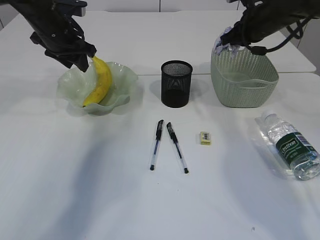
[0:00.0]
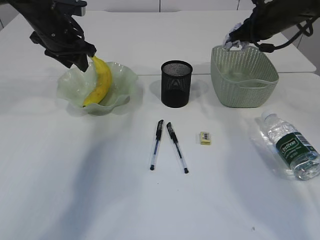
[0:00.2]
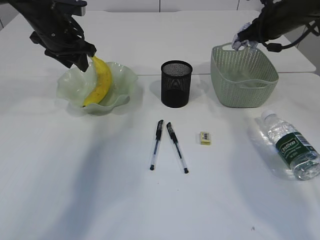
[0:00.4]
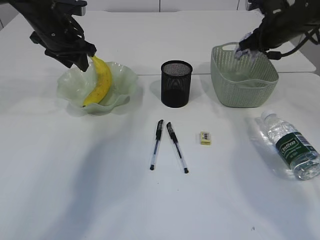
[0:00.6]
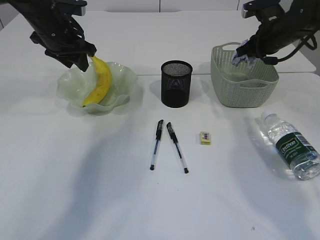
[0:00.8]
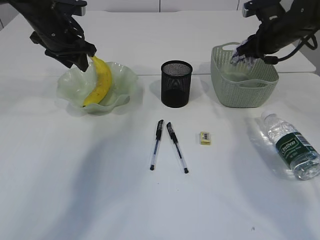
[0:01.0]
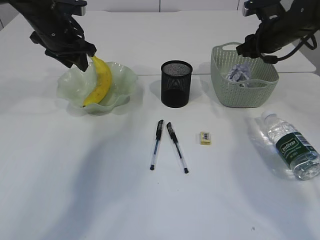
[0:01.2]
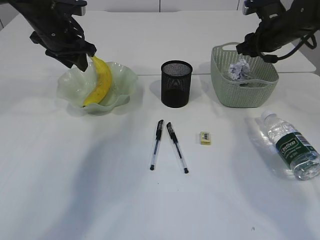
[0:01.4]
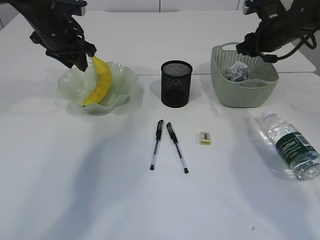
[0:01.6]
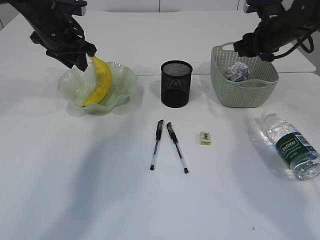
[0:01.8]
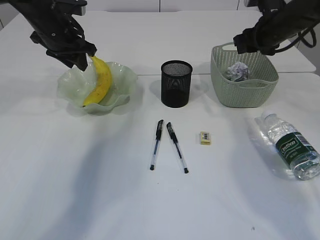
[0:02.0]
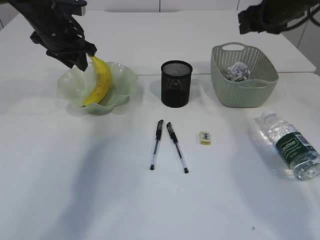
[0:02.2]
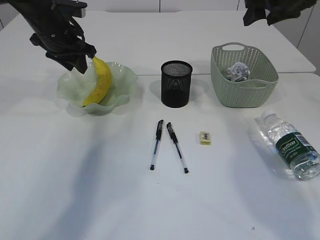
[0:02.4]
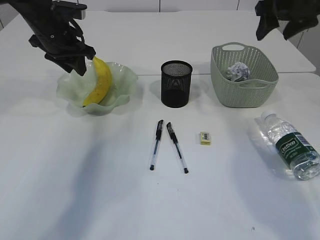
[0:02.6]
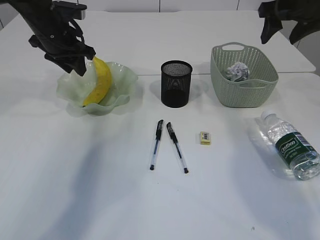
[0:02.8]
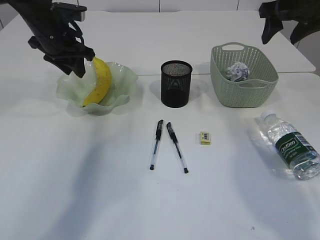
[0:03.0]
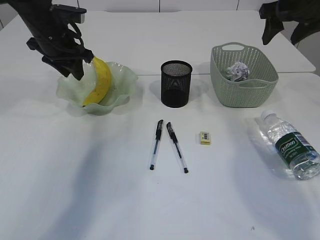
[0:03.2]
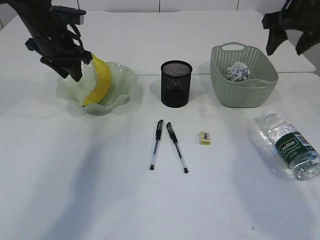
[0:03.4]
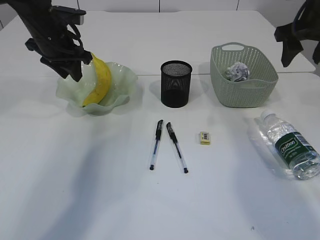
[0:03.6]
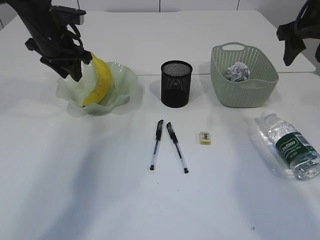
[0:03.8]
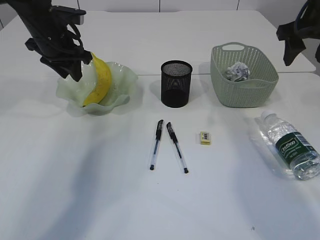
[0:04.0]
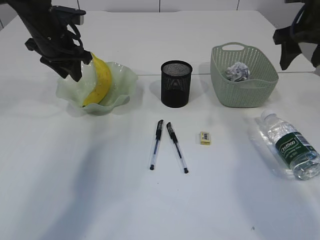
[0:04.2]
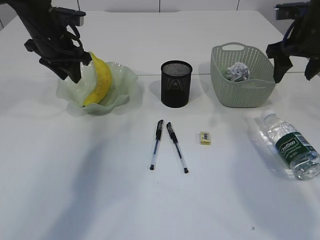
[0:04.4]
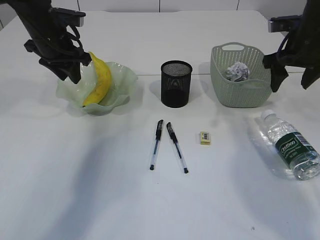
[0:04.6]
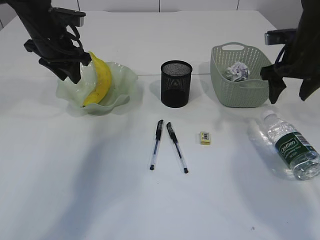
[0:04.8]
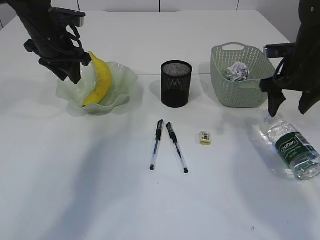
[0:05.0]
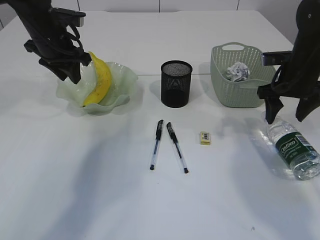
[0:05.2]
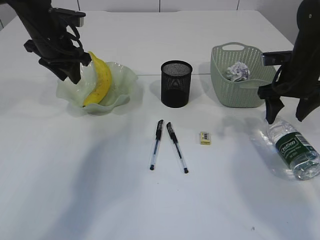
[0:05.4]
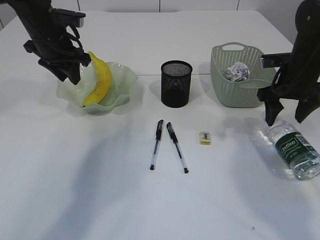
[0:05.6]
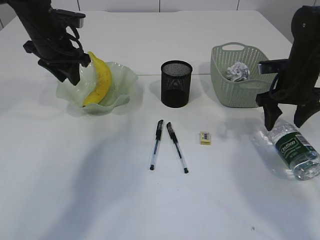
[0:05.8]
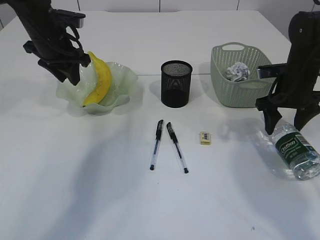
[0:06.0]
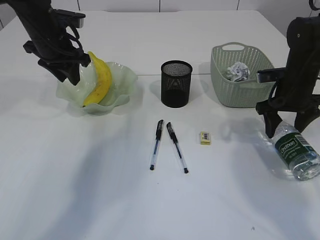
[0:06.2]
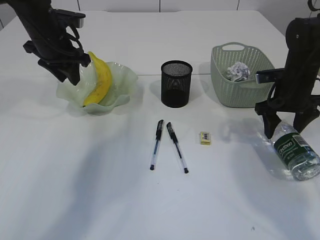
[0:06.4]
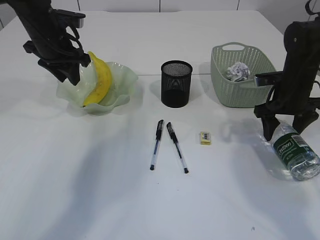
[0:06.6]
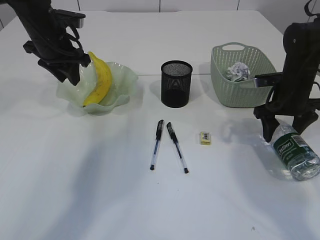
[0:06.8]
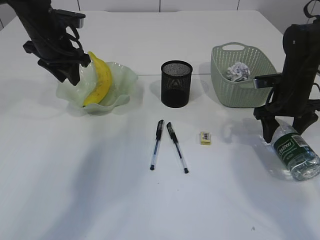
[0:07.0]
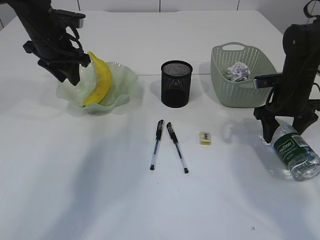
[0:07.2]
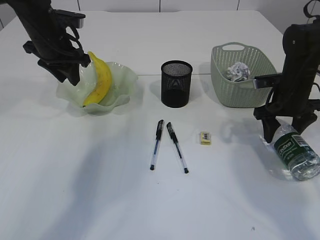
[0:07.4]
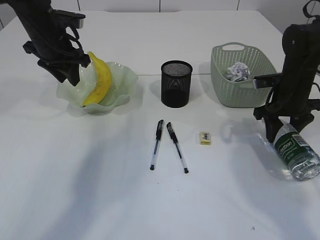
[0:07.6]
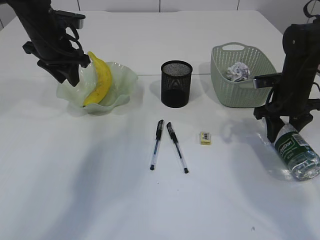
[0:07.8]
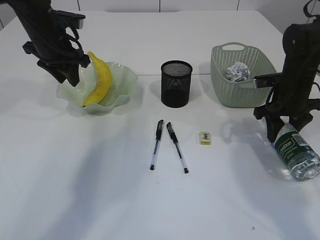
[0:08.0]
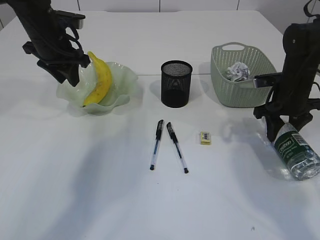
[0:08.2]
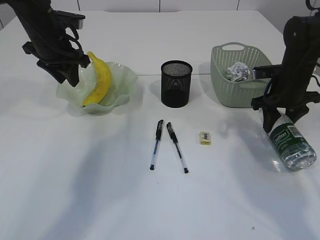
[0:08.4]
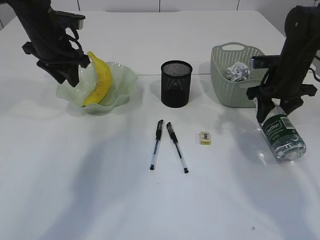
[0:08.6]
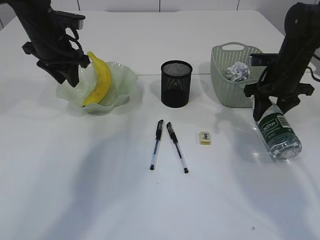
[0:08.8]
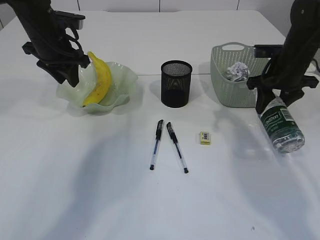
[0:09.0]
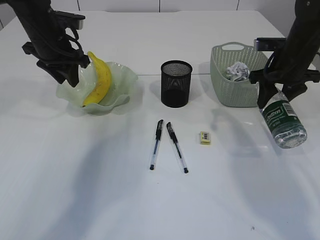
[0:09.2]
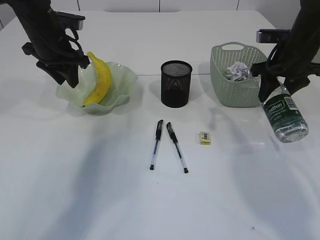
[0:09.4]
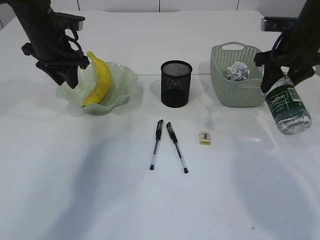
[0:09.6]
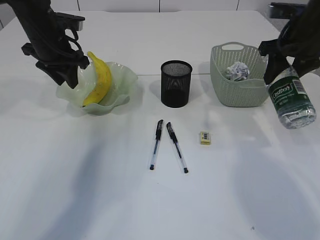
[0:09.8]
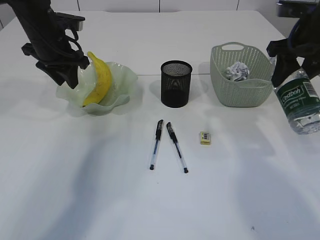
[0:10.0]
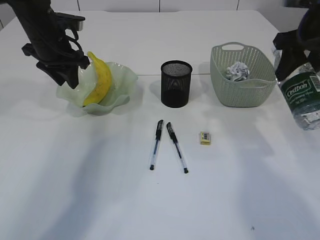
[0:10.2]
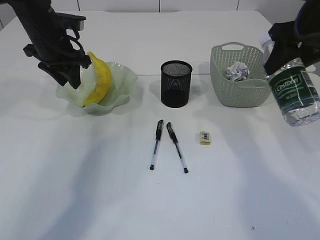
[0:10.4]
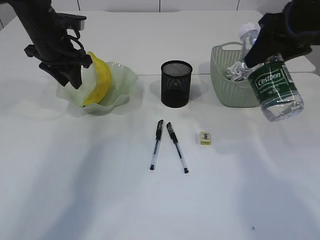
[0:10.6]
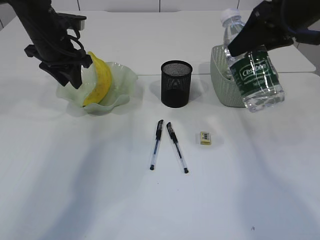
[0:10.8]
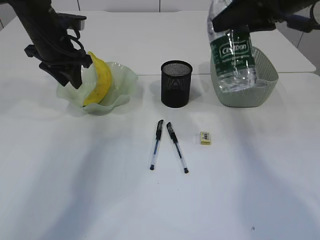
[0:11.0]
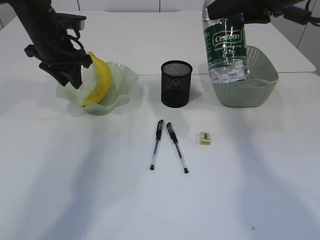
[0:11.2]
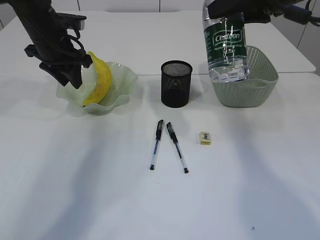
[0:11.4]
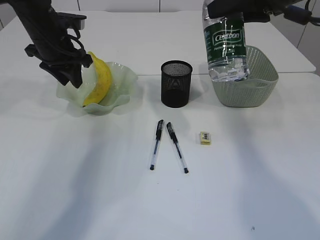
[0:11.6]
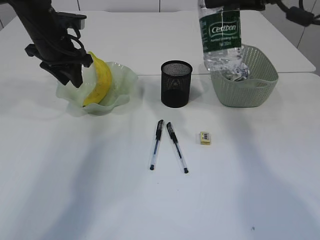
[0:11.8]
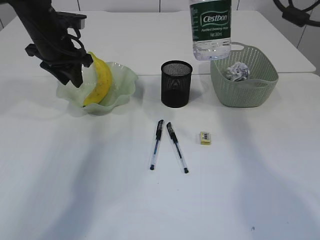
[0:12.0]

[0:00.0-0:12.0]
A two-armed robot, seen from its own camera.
Step, 0:00.0 to 0:02.0: Place the waste paper in the basket.
Step, 0:02.2 to 0:09.0: Pick up the bottle with the right arm.
0:00.0 to 0:01.6: The right gripper ends up roughly 5 cm from where it was, and opens.
0:01.6 to 0:03.0: The right gripper is displaced upward and backward by about 10 cm.
0:03.0 to 0:04.4: The right gripper ends up some 5 cm from where it was.
0:04.4 to 0:06.0: The right gripper goes some 10 cm downward.
0:06.0 to 0:07.6: The grippers make only small movements.
0:07.6 to 0:09.0: The right gripper ends up some 5 cm from where it was.
0:09.0 to 0:10.4: The right gripper moves upward and backward, approximately 15 cm.
0:10.4 to 0:12.0: The right gripper travels to the left and upward by roughly 10 cm.

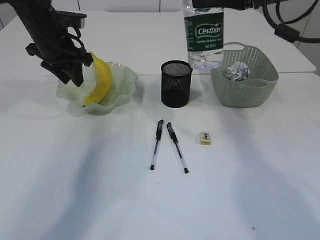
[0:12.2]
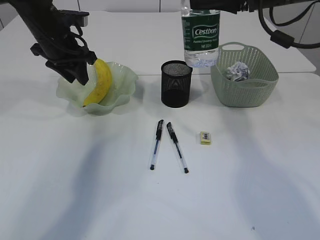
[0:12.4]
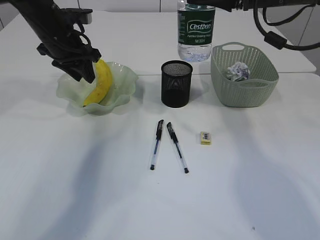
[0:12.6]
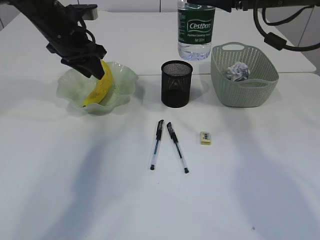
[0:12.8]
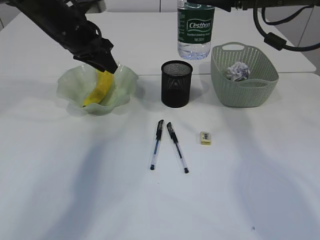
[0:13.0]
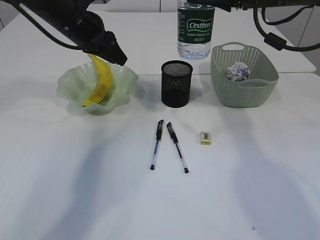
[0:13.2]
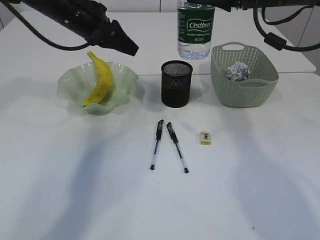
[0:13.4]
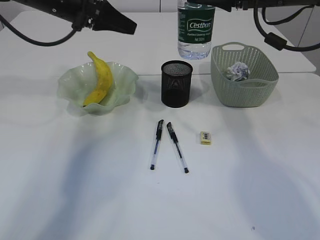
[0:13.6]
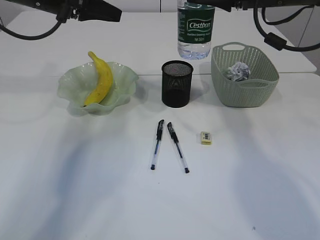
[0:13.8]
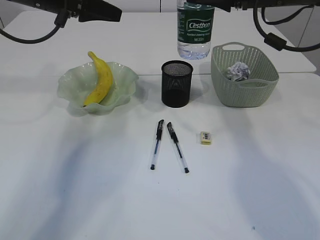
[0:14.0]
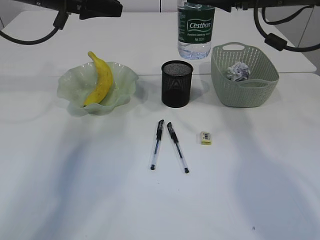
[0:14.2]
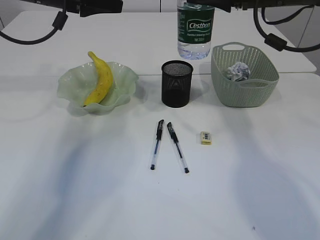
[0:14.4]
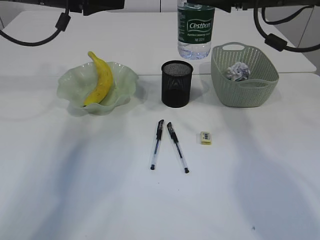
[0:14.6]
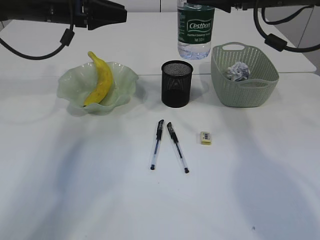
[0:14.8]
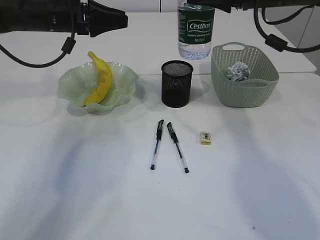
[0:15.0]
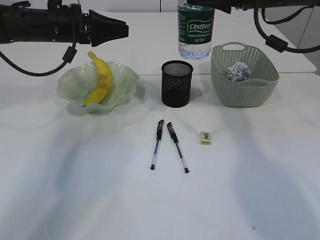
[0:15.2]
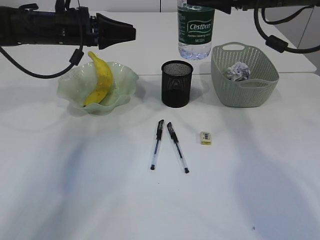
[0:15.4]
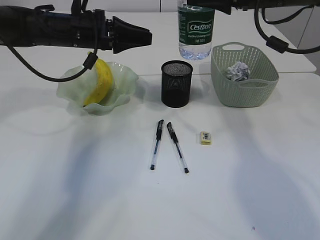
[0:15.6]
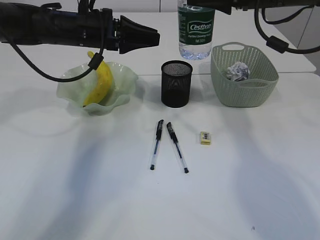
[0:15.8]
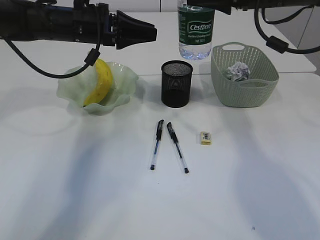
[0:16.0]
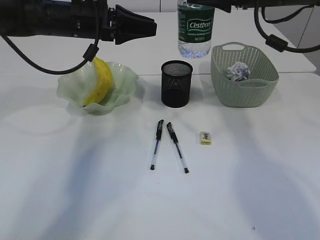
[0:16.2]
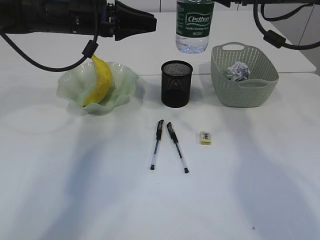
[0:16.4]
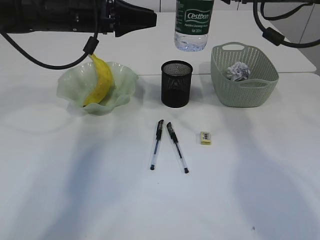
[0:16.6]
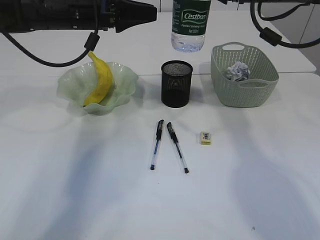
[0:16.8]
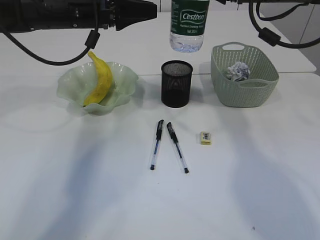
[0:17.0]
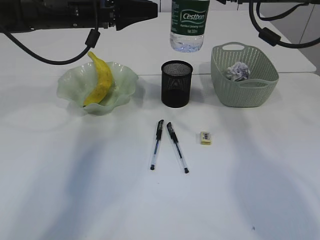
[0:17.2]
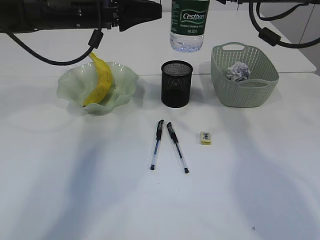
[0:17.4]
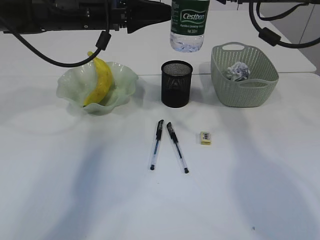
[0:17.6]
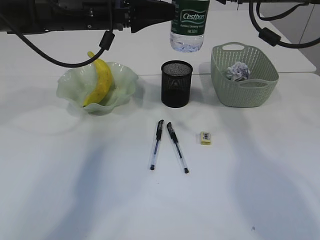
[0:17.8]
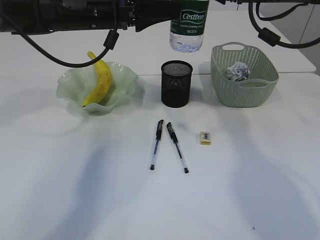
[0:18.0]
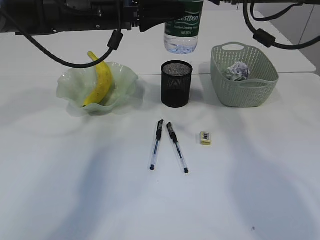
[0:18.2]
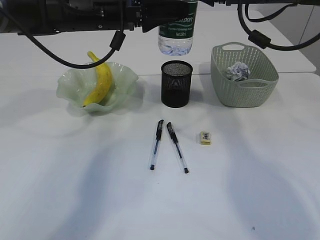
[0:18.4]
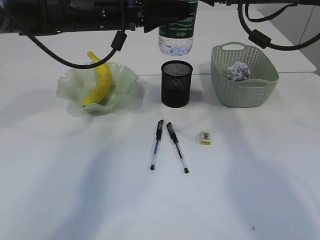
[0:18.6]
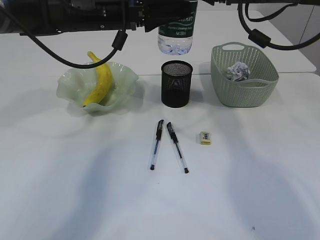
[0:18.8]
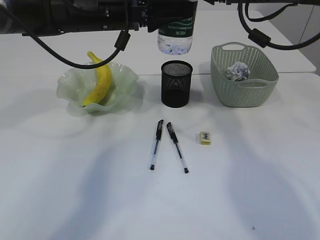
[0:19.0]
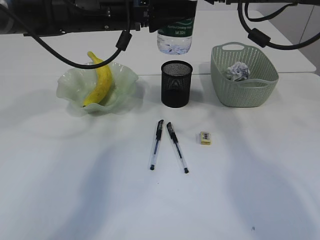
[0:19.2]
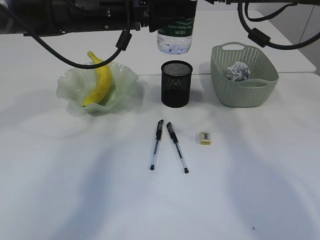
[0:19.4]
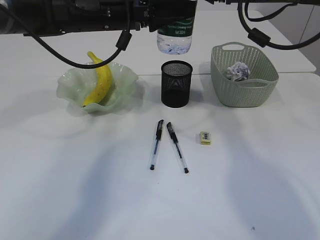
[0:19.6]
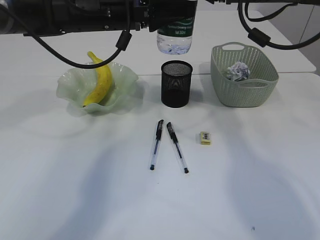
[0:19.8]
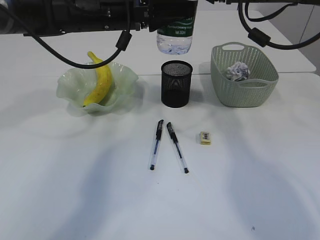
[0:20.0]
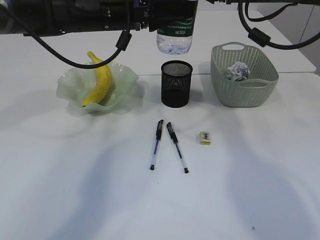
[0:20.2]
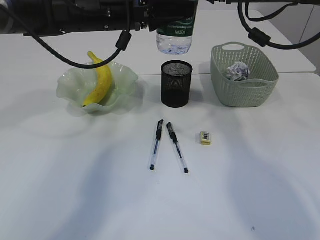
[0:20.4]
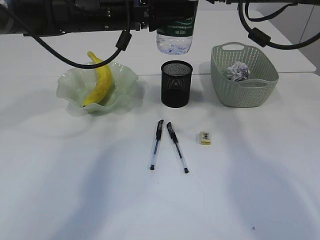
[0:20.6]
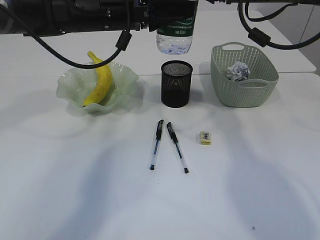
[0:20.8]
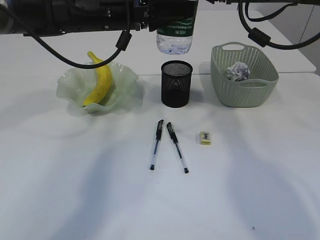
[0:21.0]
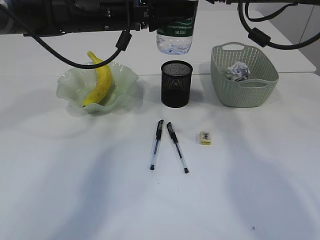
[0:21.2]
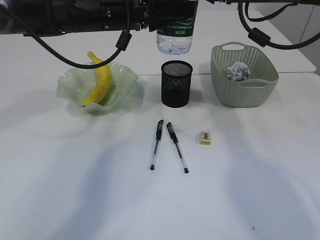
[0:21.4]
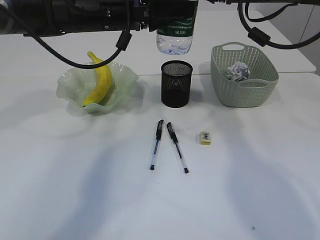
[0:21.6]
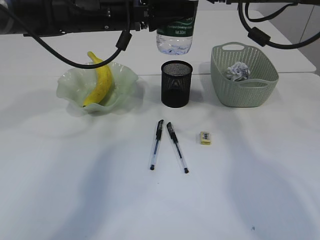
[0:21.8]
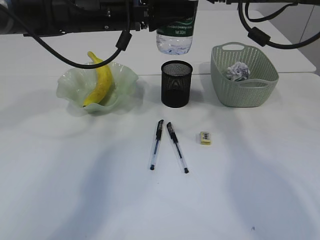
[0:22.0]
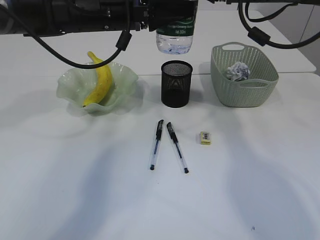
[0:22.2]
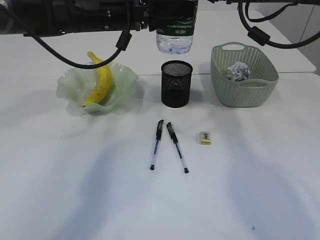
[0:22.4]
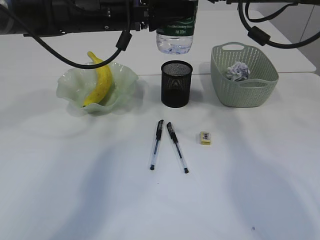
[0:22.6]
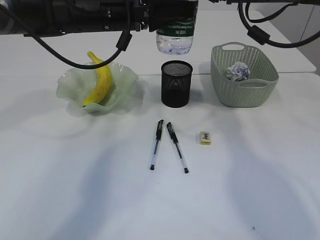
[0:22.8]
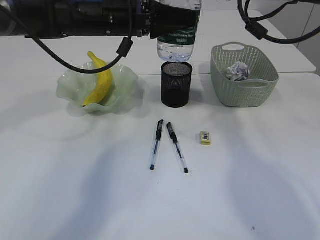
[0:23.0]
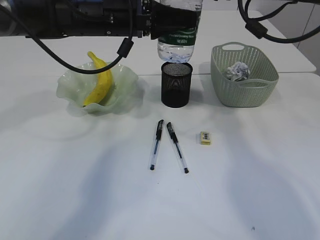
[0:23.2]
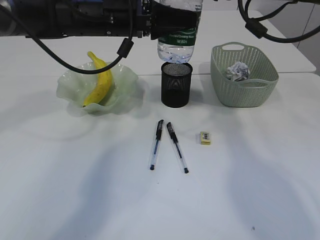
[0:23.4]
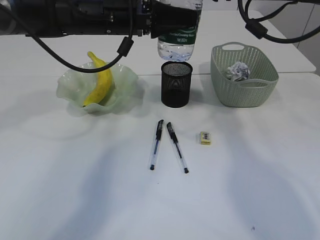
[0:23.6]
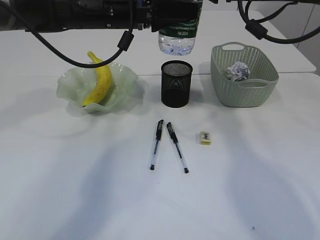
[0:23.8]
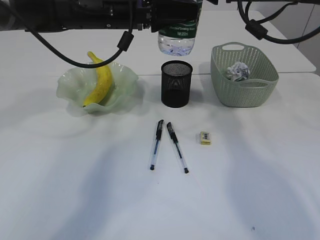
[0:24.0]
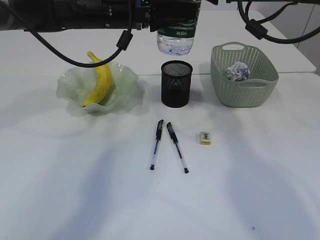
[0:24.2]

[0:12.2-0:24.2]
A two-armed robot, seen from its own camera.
0:12.2 to 0:13.8: The left gripper shifts approximately 5 cm upward.
0:13.8 to 0:15.2: The left gripper travels downward by some 5 cm.
0:15.2 to 0:16.6: The left gripper is displaced to the right by roughly 5 cm.
0:16.6 to 0:18.2: The left gripper opens.
0:18.2 to 0:19.8: The grippers make only small movements.
0:19.8 to 0:22.6: Both grippers stay about where they are.
0:22.6 to 0:24.2: The grippers move only a little.
